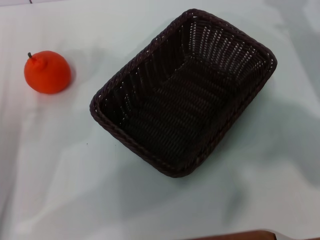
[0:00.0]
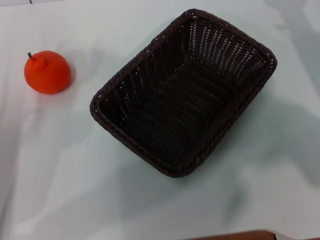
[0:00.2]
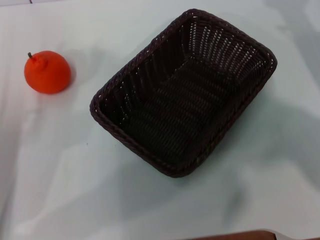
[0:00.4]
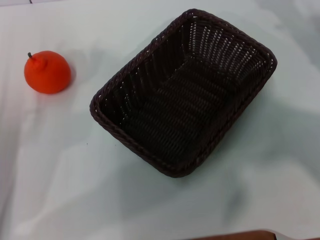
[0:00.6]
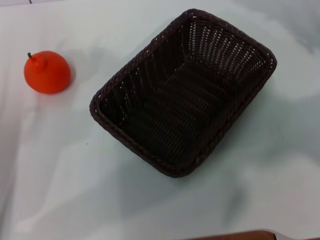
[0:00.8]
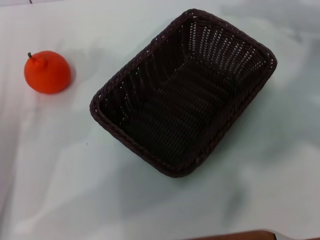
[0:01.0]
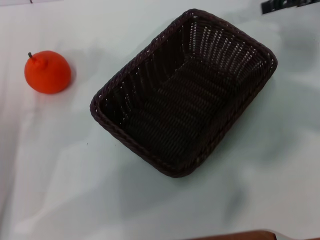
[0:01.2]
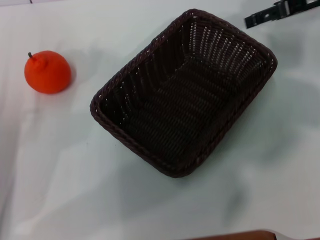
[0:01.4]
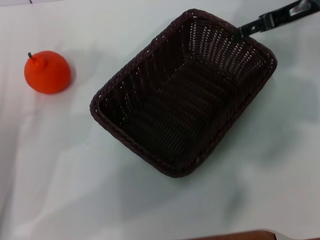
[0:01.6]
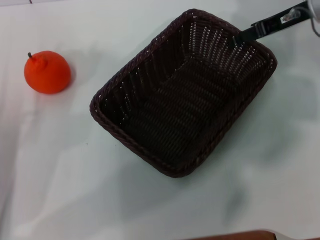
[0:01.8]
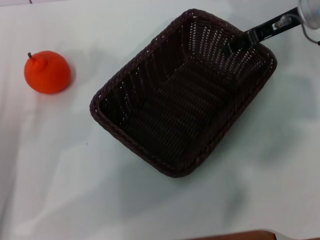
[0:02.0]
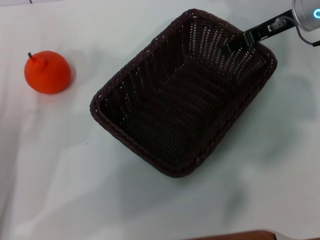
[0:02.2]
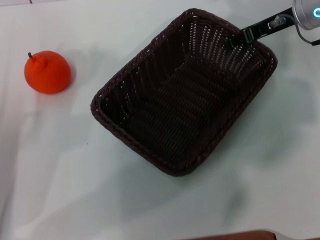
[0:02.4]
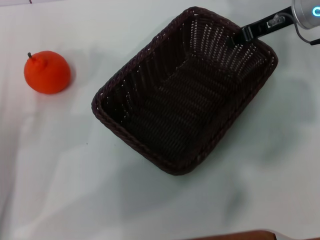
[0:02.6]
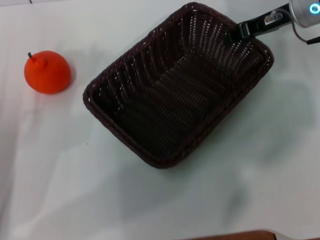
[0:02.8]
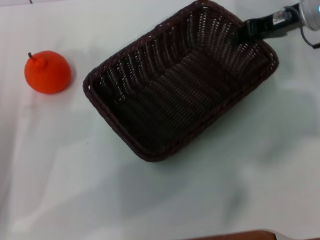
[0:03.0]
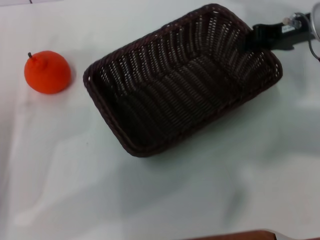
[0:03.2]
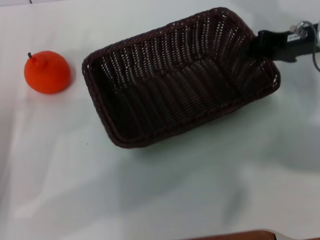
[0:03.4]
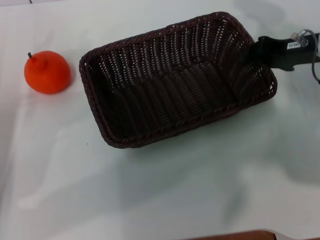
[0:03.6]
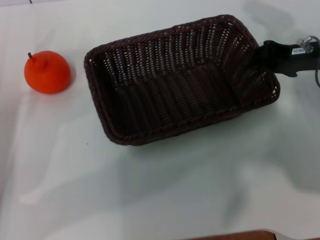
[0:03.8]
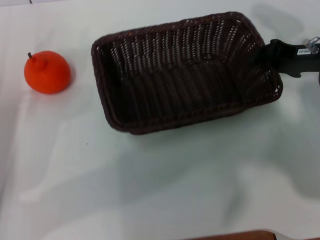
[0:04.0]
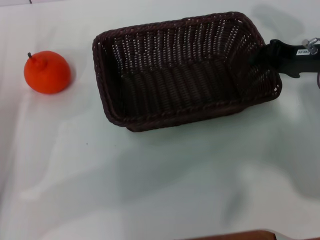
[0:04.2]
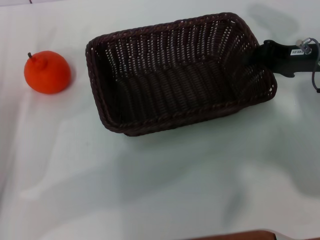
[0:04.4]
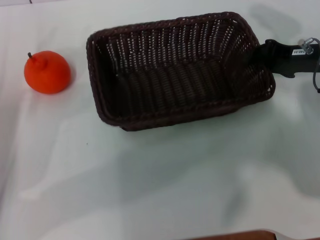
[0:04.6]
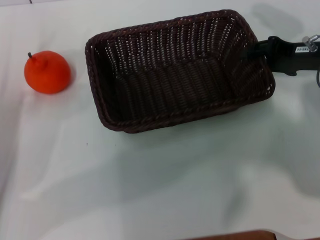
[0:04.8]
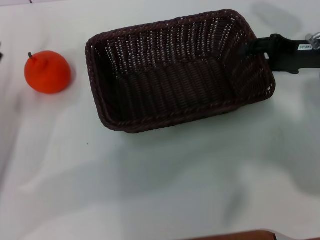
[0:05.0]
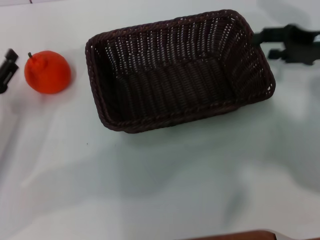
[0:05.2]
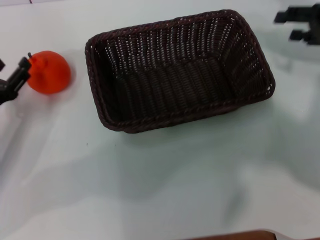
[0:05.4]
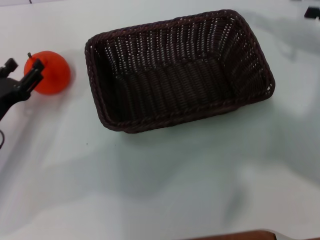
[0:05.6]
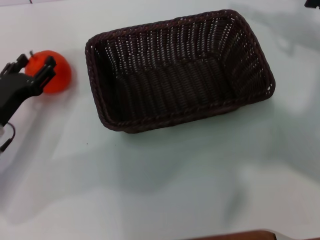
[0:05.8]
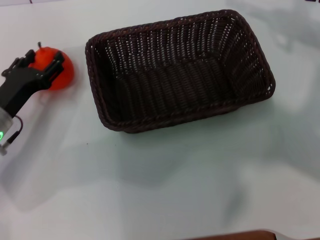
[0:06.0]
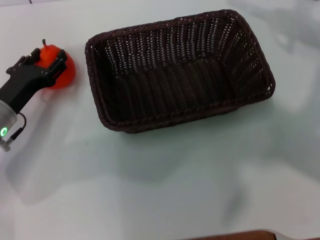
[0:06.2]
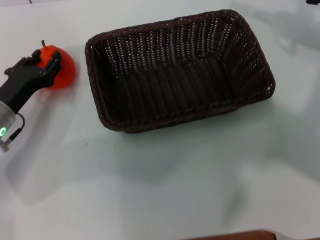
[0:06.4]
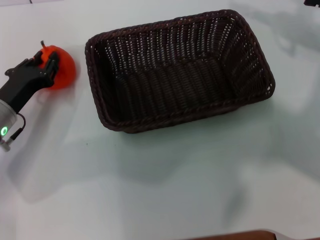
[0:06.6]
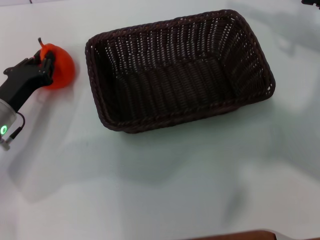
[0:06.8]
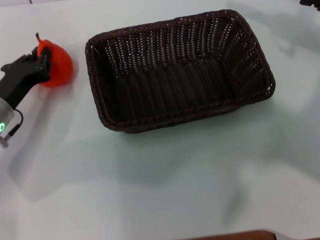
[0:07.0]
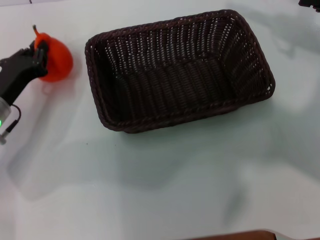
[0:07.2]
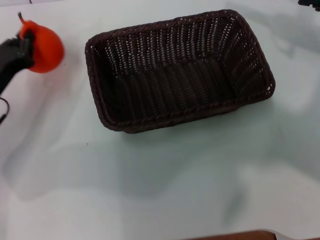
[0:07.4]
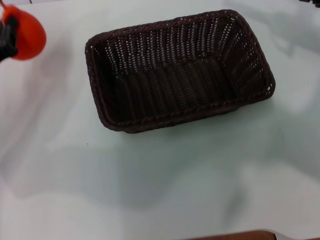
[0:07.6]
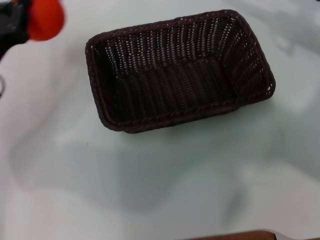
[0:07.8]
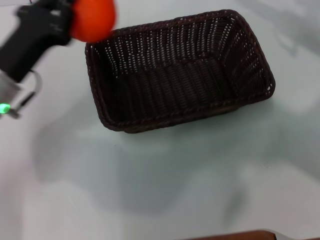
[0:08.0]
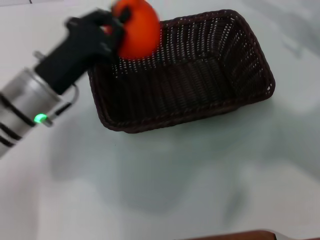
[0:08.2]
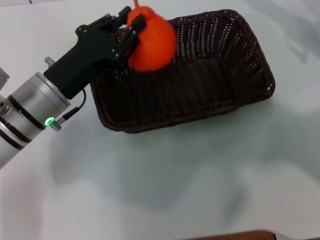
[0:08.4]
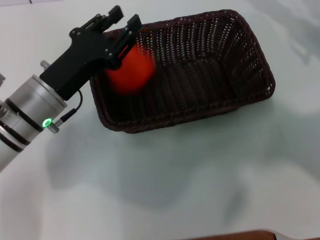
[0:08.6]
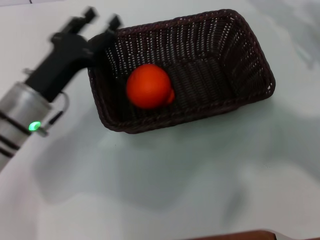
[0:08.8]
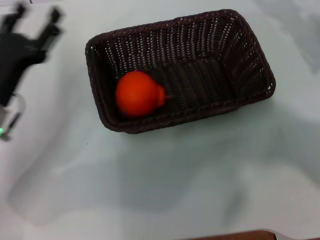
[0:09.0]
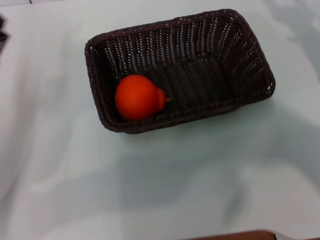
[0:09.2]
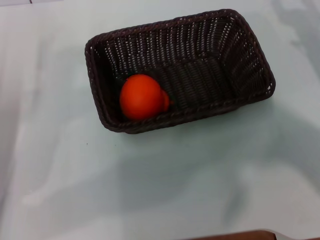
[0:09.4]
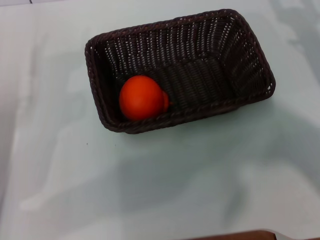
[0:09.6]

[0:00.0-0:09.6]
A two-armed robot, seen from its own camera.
Task of the whole recording: the right gripper pick up the black basket and place it horizontally in the middle of the table, the left gripper pick up the orange and place it into the black basket.
Step, 0:00.0 to 0:02.8: Pick up the dark basket with the right gripper.
Step, 0:03.0 to 0:04.8: Place the dark basket in the center of view with the right gripper.
Step, 0:05.2 to 0:07.2: Pick up the orange with the left gripper.
Step, 0:07.4 to 0:08.6: Place the orange into the dark basket with the left gripper.
0:00.0 to 0:01.6: The right gripper goes approximately 15 cm forward, upward and to the left.
0:01.6 to 0:03.2: The right gripper closes its fingers.
0:03.2 to 0:04.8: The right gripper changes place by about 5 cm.
0:04.8 to 0:06.4: The right gripper shifts approximately 10 cm upward and to the right, and opens its fingers. The left gripper shifts about 5 cm forward.
0:06.4 to 0:08.0: The left gripper travels upward by roughly 10 cm, and closes up.
0:08.0 to 0:09.6: The right gripper is displaced downward by about 10 cm, while the left gripper moves to the left, downward and backward, roughly 10 cm, and opens up.

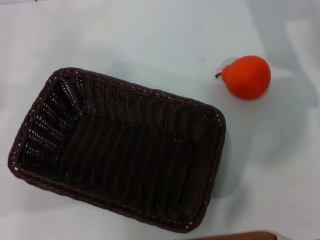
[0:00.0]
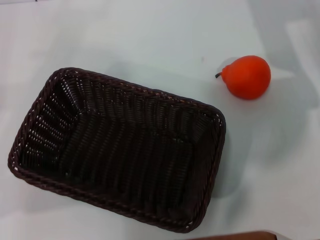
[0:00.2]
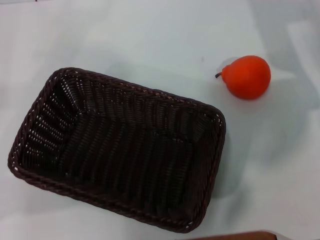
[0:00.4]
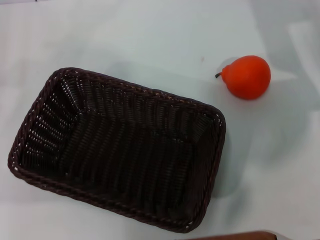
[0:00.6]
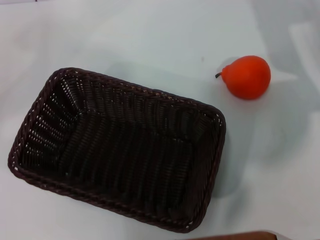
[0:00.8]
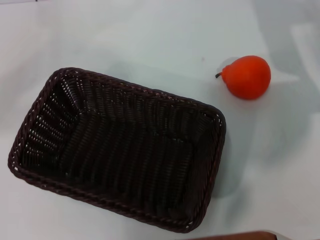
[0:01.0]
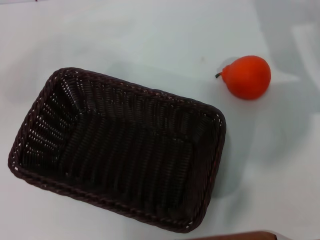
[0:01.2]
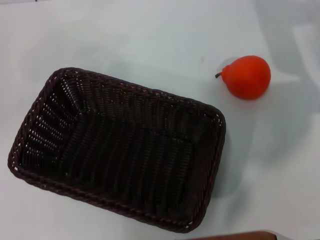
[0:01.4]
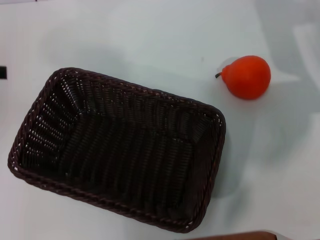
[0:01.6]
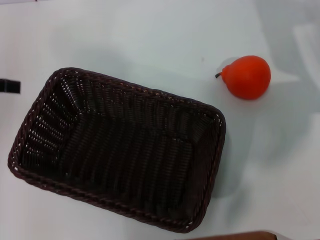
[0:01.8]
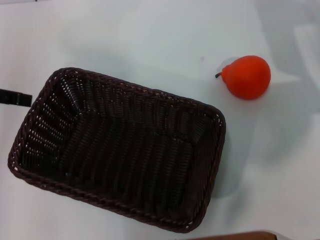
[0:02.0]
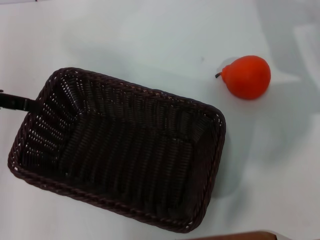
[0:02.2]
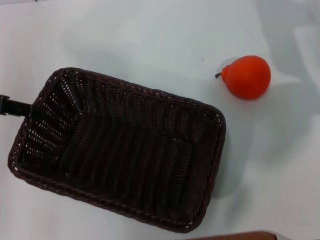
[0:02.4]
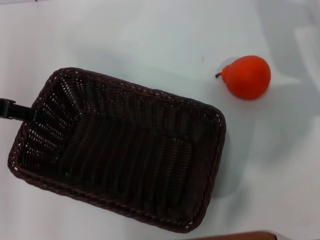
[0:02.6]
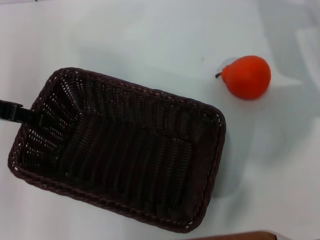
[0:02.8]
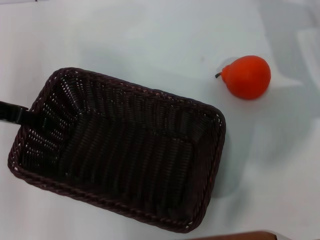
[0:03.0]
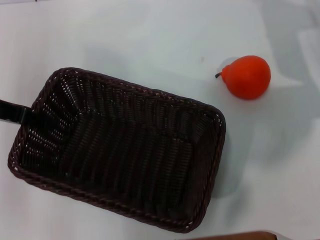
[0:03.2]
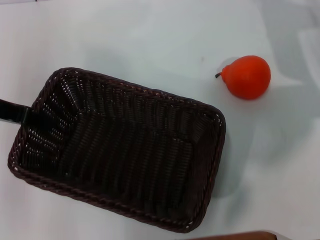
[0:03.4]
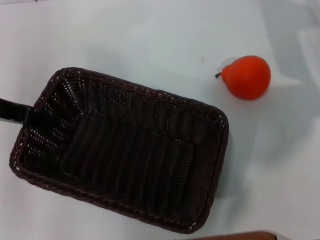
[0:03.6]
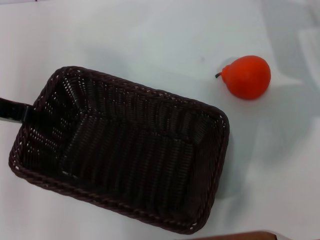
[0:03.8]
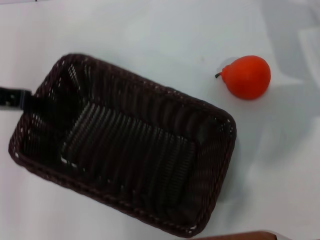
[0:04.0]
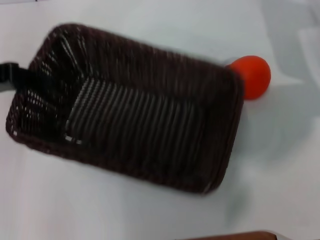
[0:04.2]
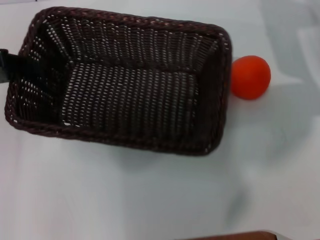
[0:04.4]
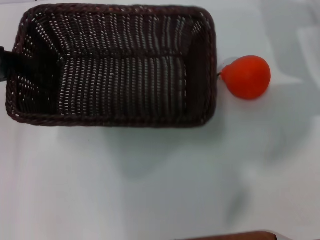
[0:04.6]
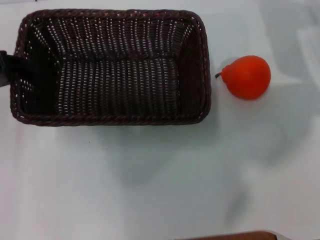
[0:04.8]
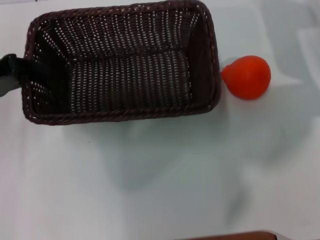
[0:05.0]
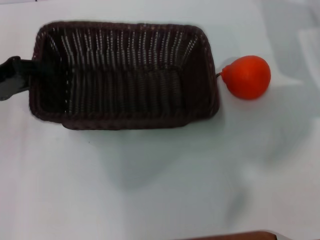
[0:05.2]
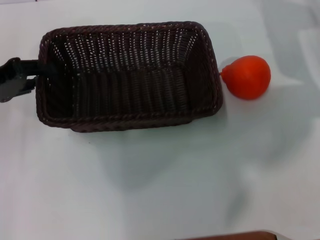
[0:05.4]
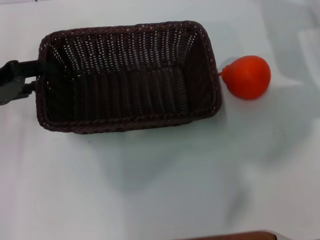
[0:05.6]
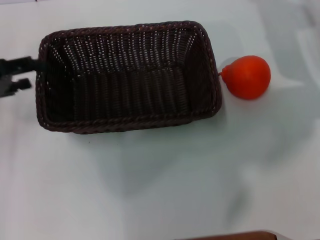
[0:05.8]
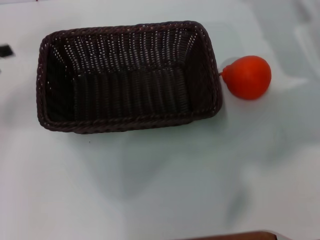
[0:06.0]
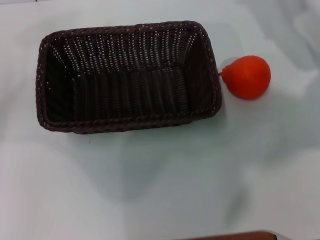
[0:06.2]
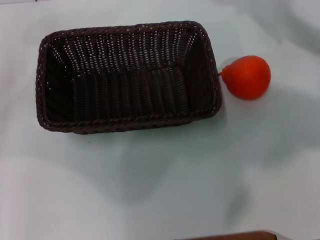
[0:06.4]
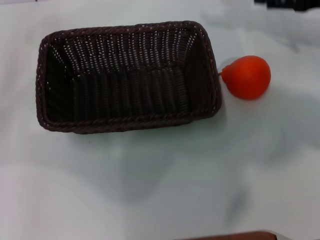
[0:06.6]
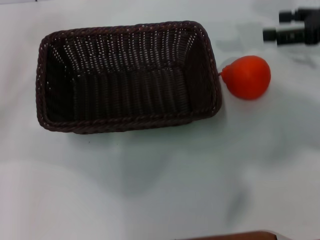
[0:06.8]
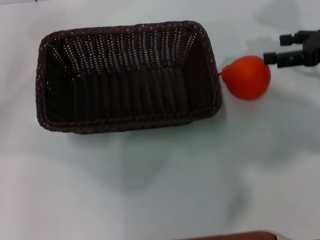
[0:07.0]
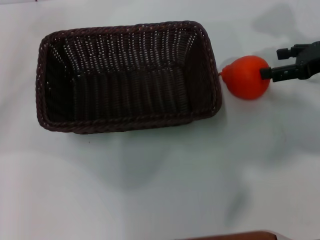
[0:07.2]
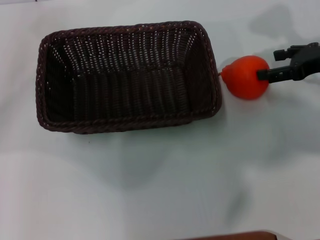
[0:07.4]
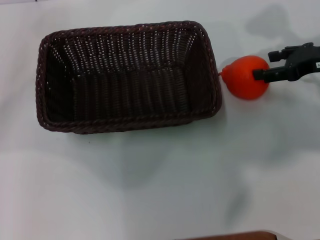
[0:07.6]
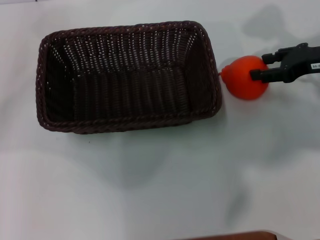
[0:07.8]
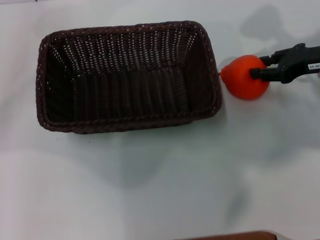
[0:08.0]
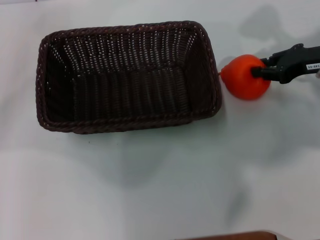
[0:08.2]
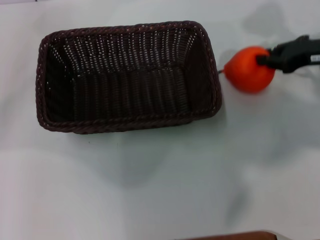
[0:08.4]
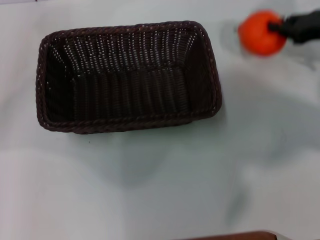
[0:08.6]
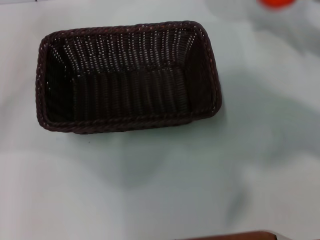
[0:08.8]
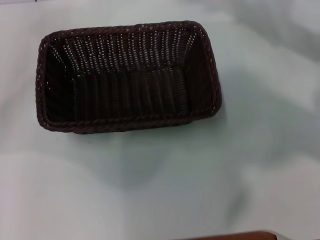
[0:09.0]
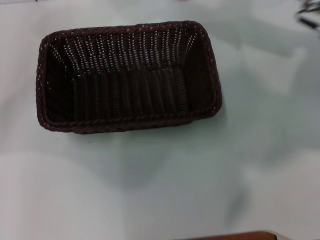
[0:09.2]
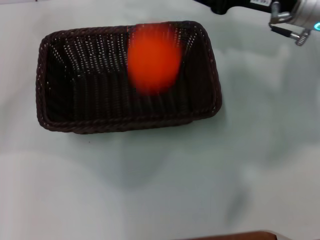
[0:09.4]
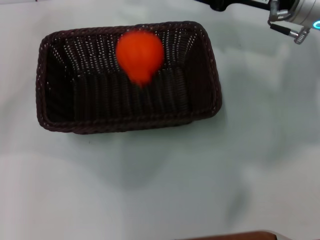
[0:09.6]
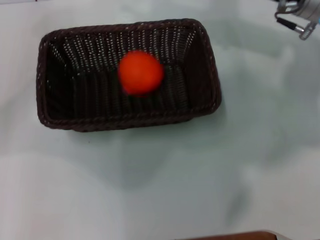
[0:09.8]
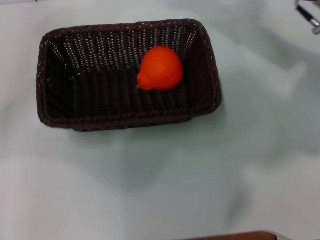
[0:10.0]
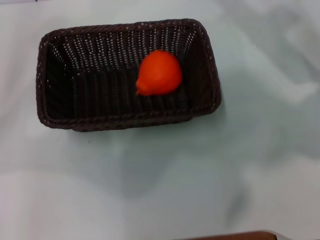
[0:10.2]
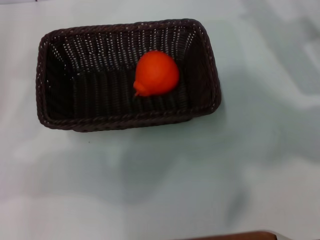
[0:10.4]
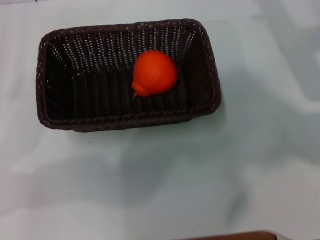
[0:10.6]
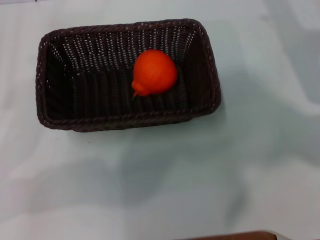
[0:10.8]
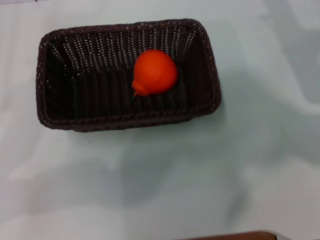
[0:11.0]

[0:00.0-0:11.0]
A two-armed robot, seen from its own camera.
Task of the whole recording: the left gripper pick up the black basket and place it horizontally in the middle of the table, the right gripper pick up the orange and place it into the black basket.
Step, 0:00.0 to 0:04.0: Pick up the dark basket with the left gripper.
Step, 0:04.4 to 0:05.8: Place the dark basket in the center of view with the left gripper.
Step, 0:06.0 to 0:08.4: Pick up the orange with the right gripper.
Step, 0:08.8 to 0:09.4: Place the orange into the dark basket with the right gripper.
0:01.6 to 0:03.2: The left gripper shifts roughly 5 cm to the right.
0:03.2 to 0:04.8: The left gripper closes up.
0:04.8 to 0:06.2: The left gripper shifts about 5 cm to the left, and opens up.
0:07.8 to 0:09.4: The right gripper heads to the left and upward, covering roughly 10 cm, and closes.
0:09.4 to 0:11.0: The right gripper heads to the right and downward, covering about 10 cm, and opens its fingers. The left gripper travels backward and downward by approximately 10 cm.
